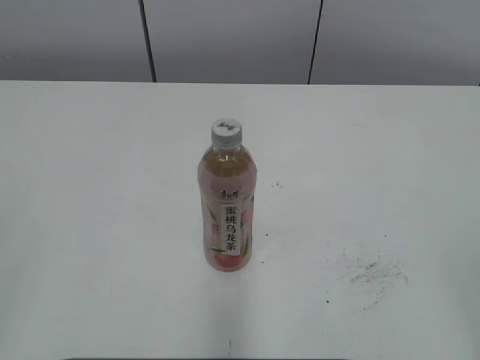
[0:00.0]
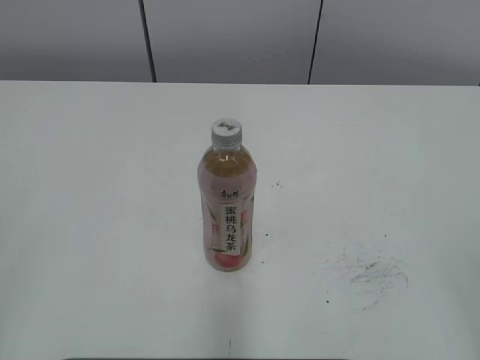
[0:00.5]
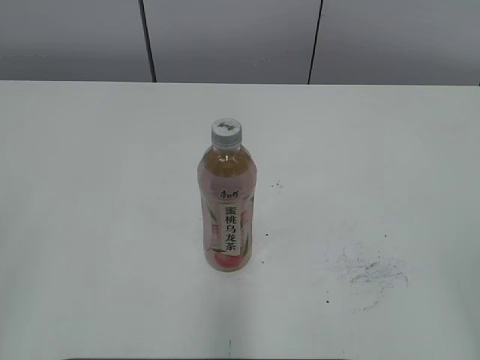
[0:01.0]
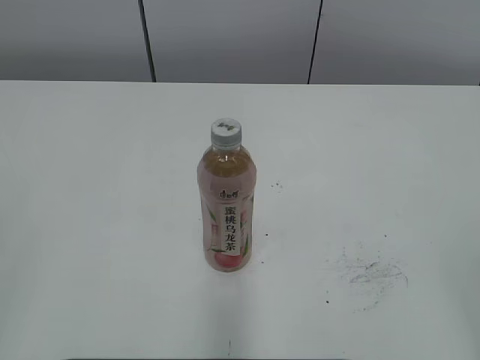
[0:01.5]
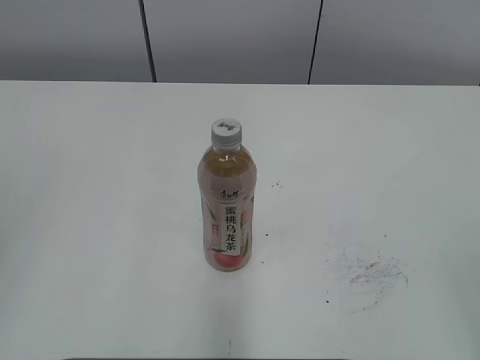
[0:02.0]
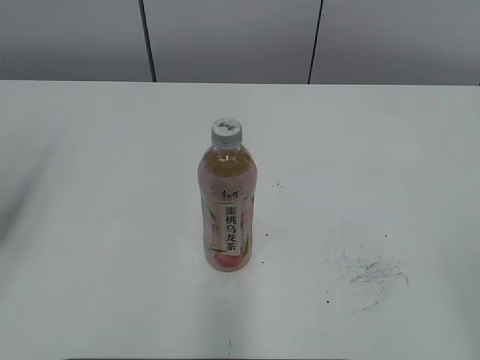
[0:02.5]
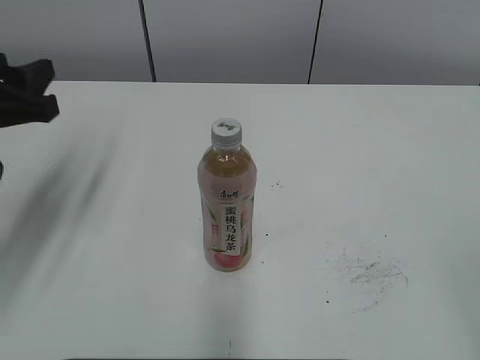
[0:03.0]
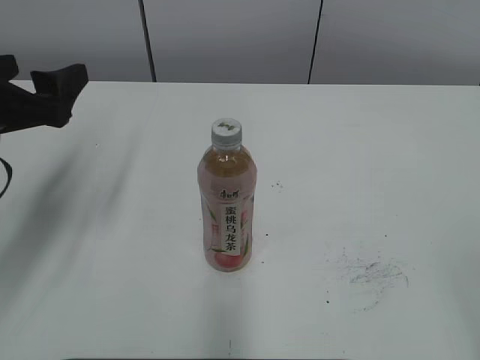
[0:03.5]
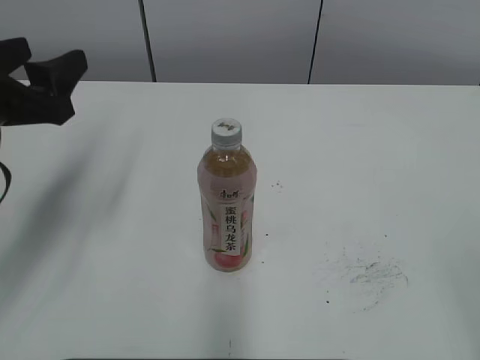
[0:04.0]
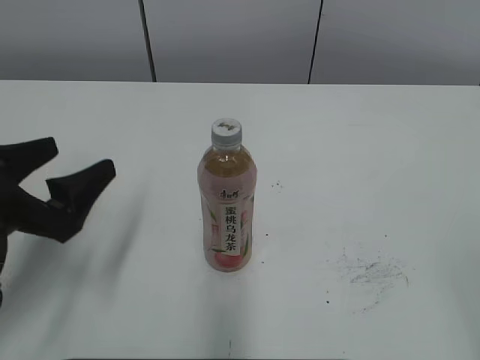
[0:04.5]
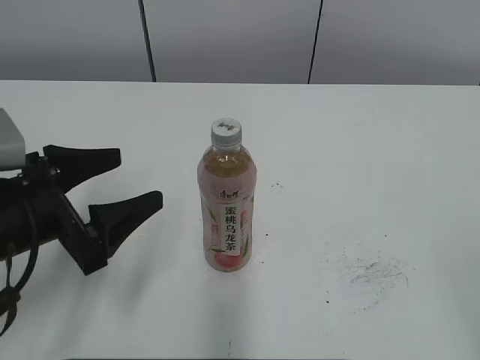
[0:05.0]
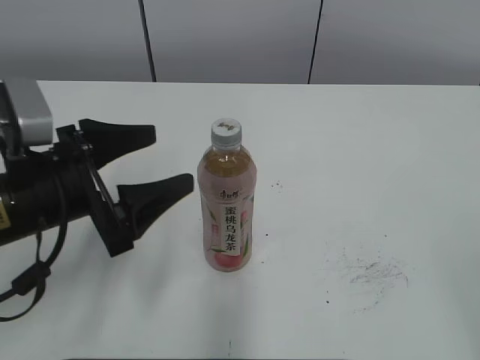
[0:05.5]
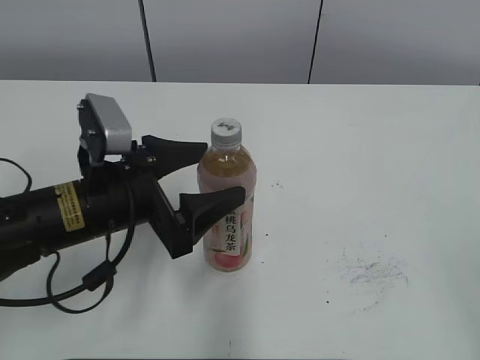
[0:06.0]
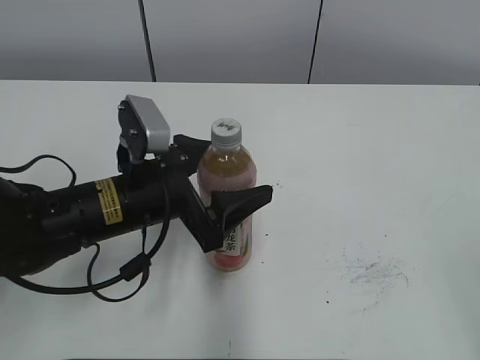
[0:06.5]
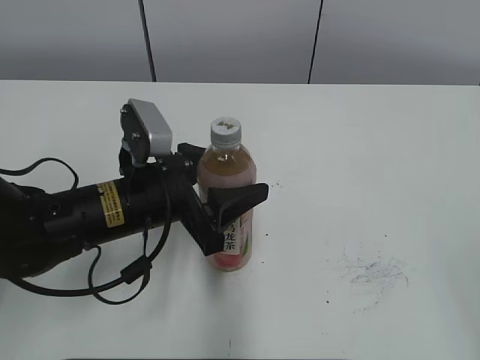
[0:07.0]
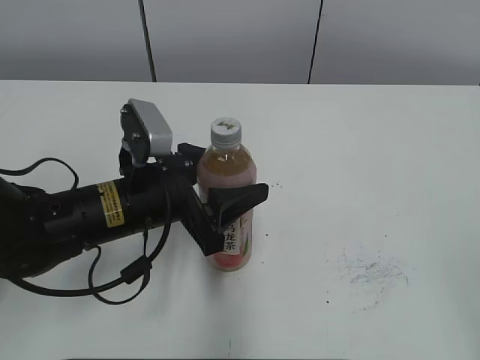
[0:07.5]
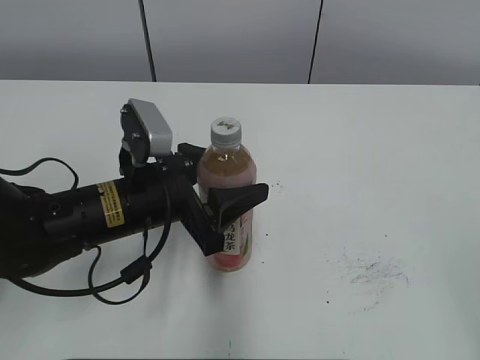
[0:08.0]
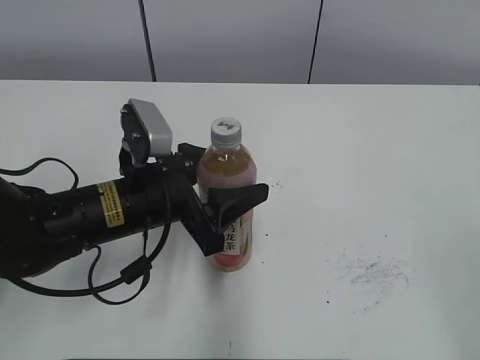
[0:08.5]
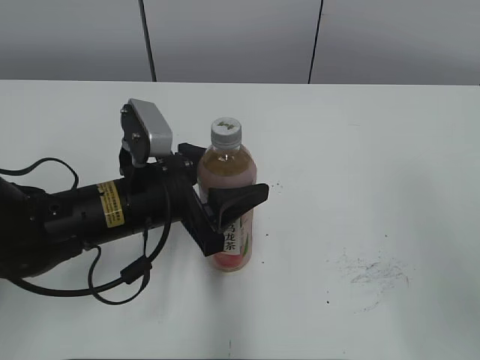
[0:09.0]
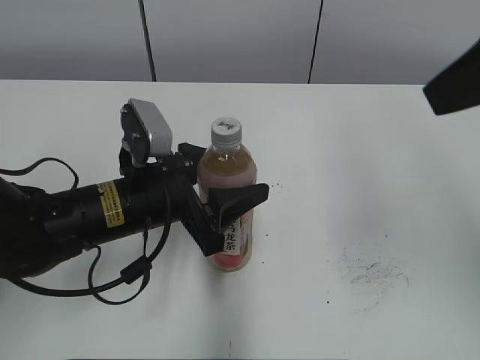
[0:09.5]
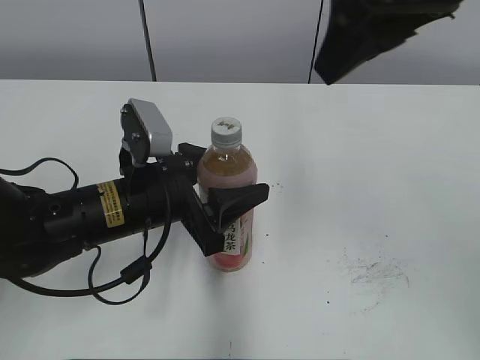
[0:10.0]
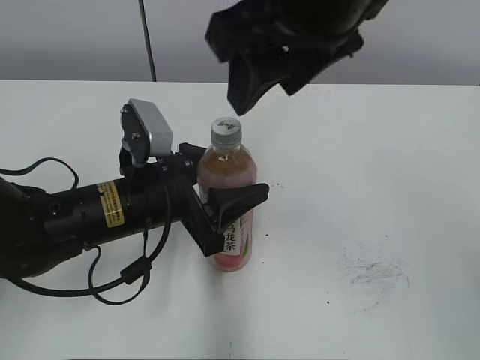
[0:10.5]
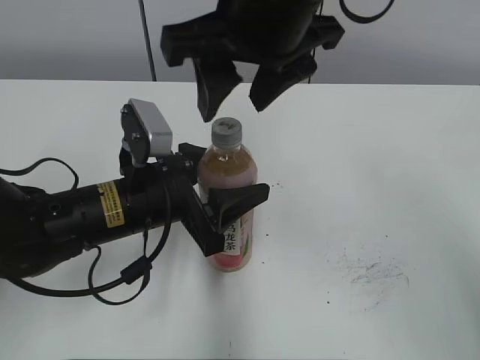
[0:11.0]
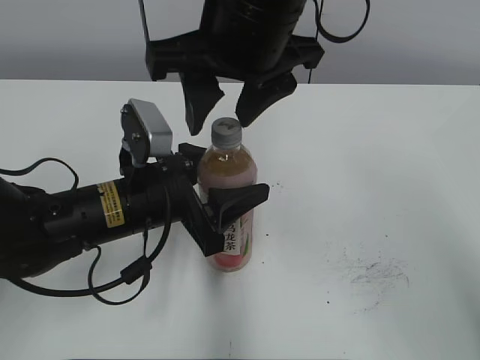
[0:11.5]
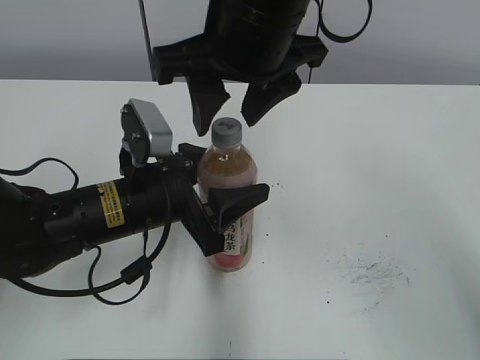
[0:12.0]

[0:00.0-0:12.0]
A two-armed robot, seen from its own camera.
Step, 0:00.0 to 0:07.0: Grab the Peach Oolong Tea with the left hand.
0:02.0 to 0:04.0: The left gripper goes about 25 cm forward and downward, and opens.
0:04.0 to 0:06.0: The left gripper goes about 15 cm to the right and downward, and opens.
0:06.0 to 0:08.0: The left gripper closes its fingers.
0:08.0 to 0:10.0: The right gripper shifts about 30 cm forward and to the left.
0:10.0 to 0:12.0: The right gripper moves to the left and downward, some 15 cm.

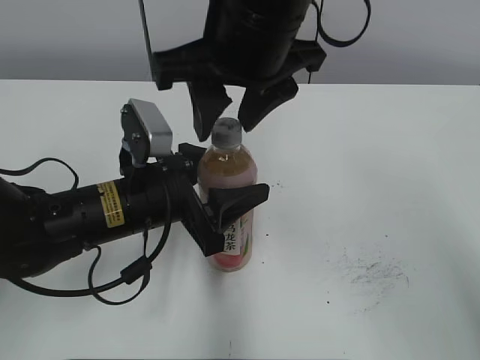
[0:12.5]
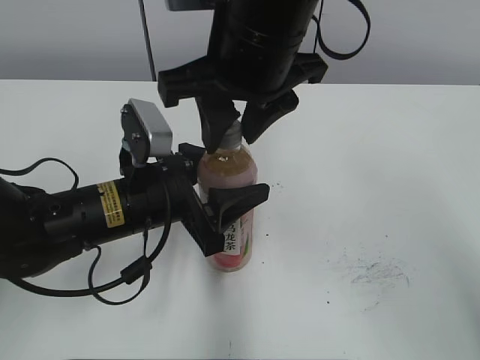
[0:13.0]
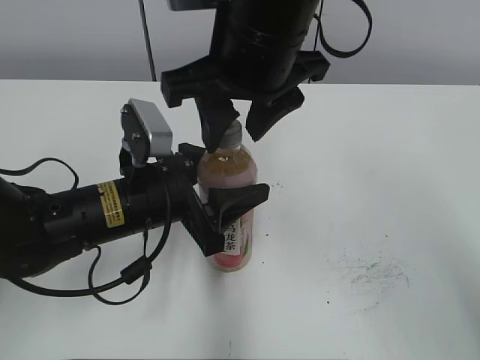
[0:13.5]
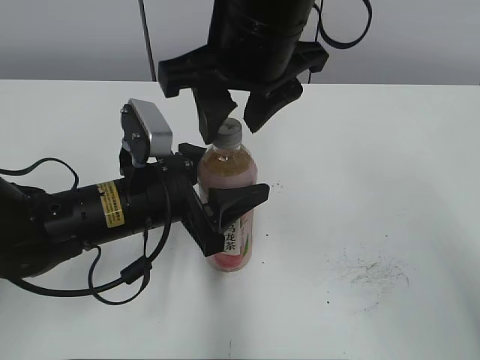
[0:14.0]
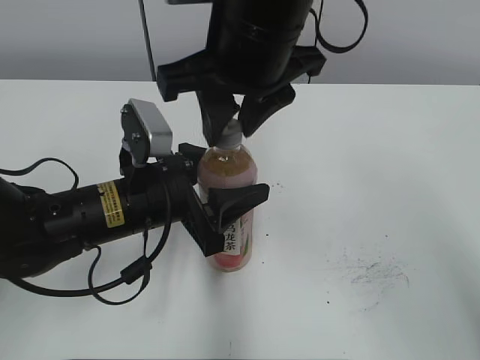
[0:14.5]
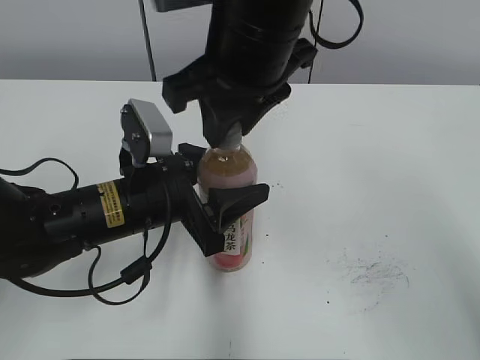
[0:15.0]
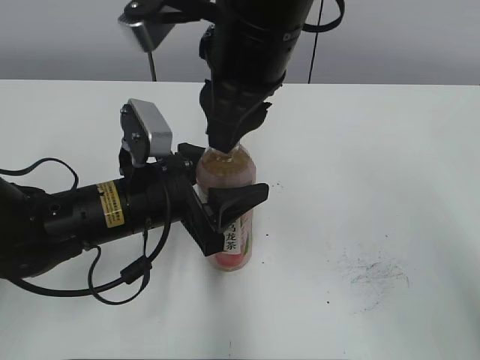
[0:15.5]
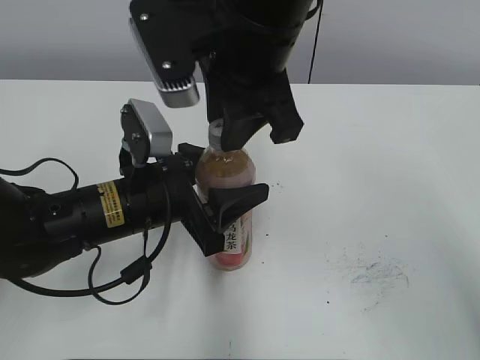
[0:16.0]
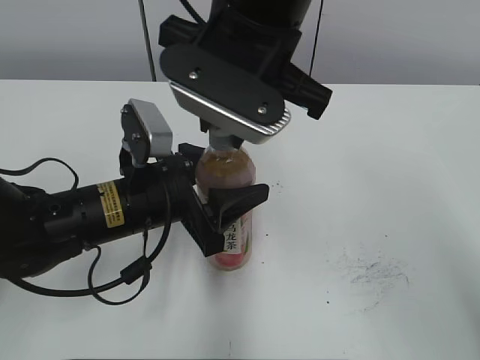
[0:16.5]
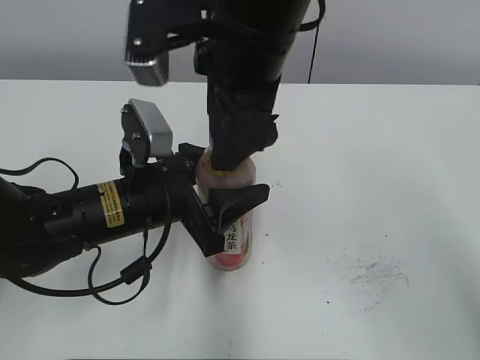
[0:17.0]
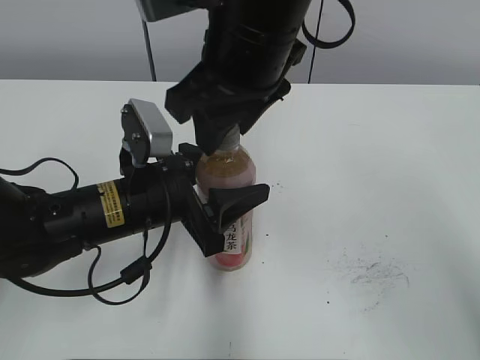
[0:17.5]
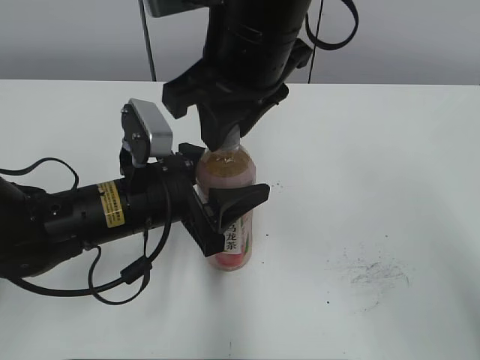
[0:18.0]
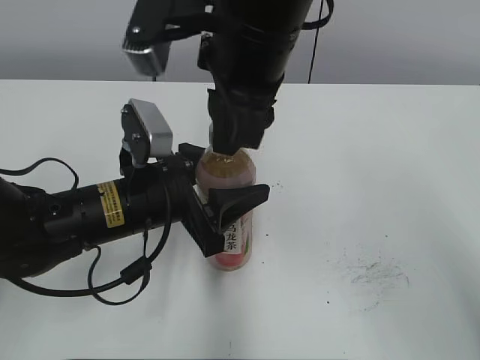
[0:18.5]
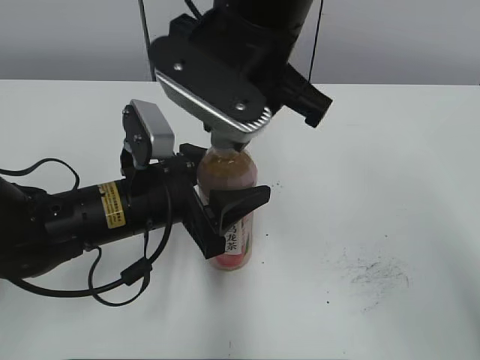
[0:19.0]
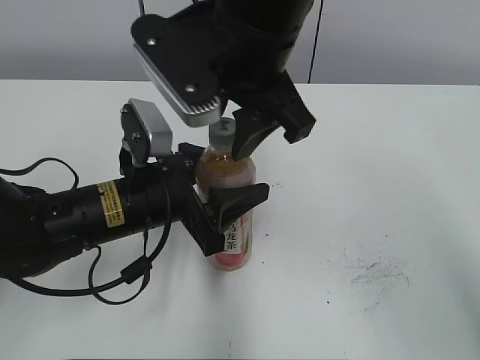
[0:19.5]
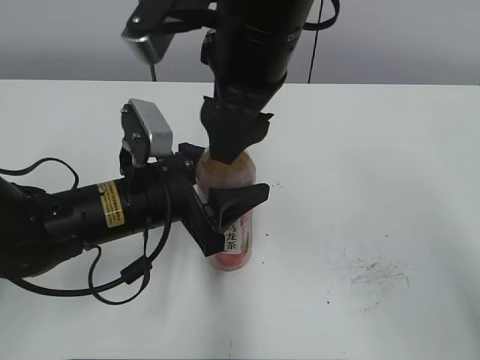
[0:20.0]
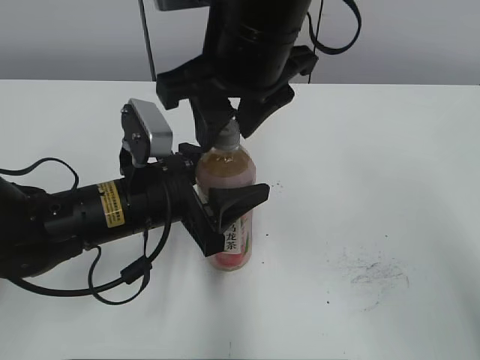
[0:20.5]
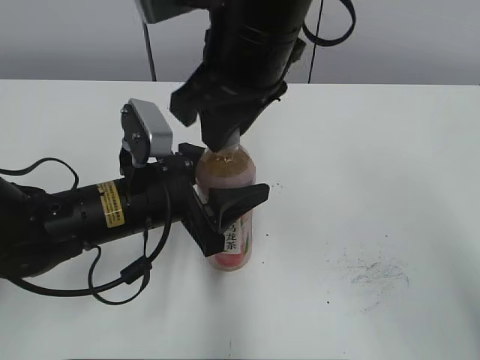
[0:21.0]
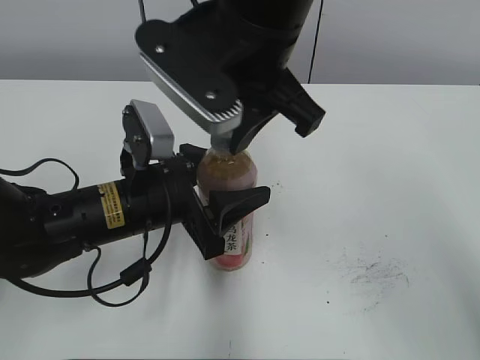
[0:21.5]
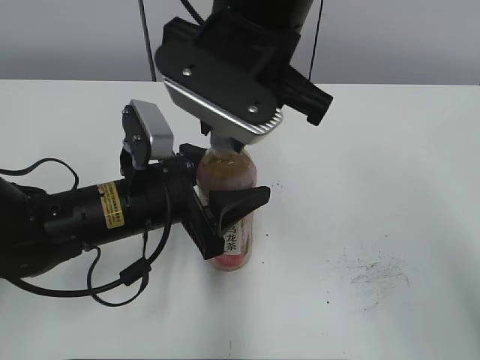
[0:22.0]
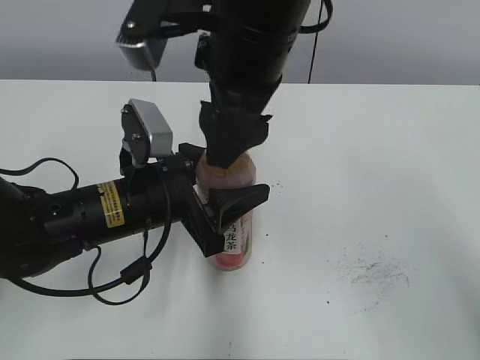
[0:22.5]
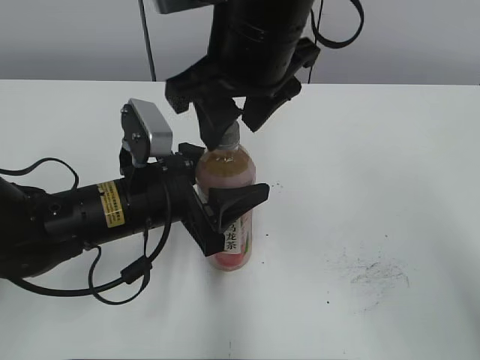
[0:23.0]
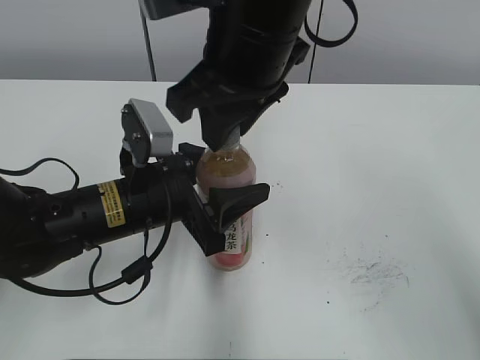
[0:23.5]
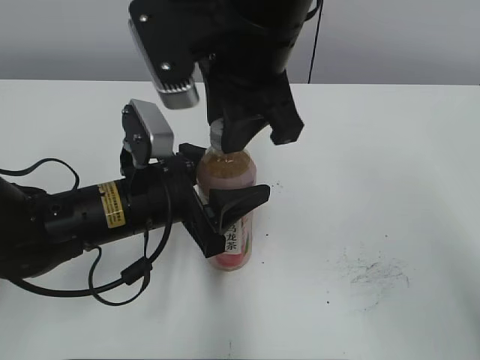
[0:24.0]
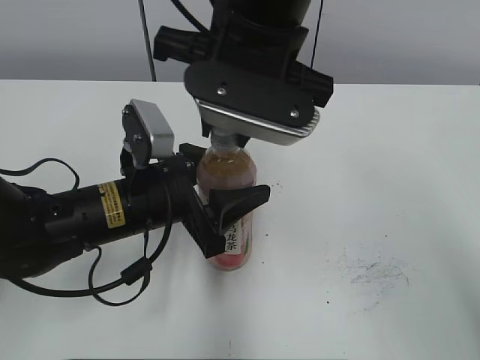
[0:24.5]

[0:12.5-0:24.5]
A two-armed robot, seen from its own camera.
0:12.5 to 0:14.5: Neither gripper changes place.
0:16.5 to 0:18.5: The right gripper opens and closes again.
0:18.5 to 0:20.5: The right gripper opens.
0:20.5 to 0:22.5: The right gripper opens.
0:22.5 to 0:24.5: The right gripper closes its fingers.

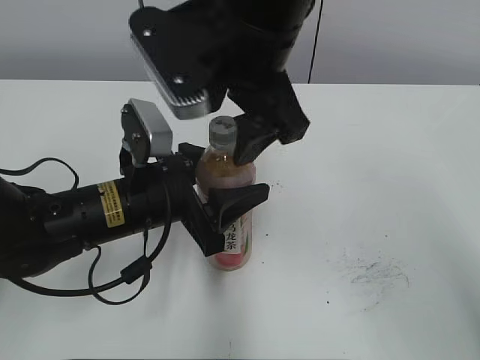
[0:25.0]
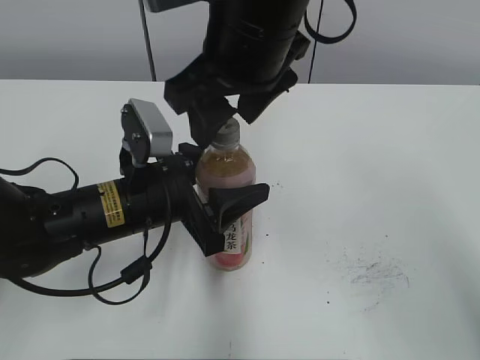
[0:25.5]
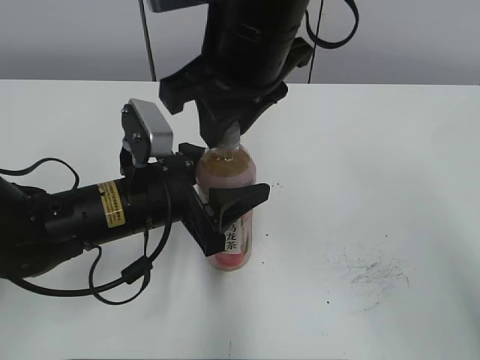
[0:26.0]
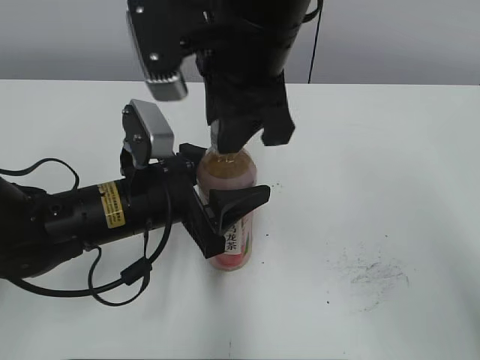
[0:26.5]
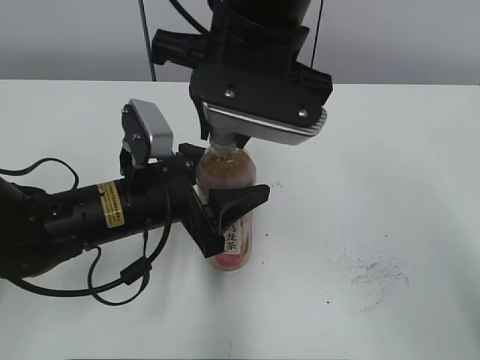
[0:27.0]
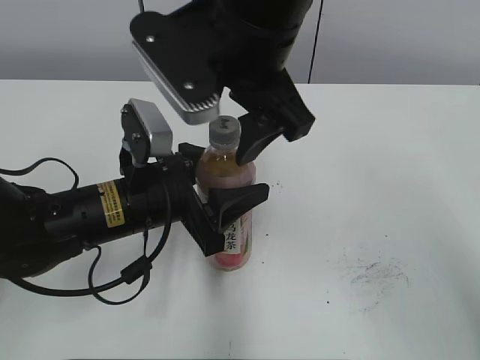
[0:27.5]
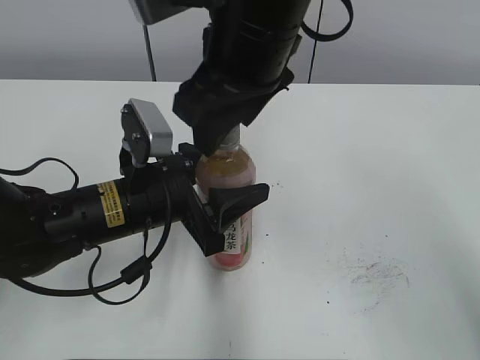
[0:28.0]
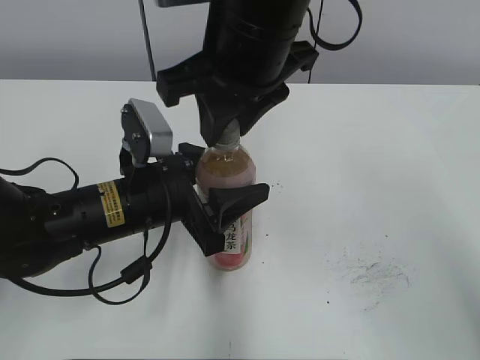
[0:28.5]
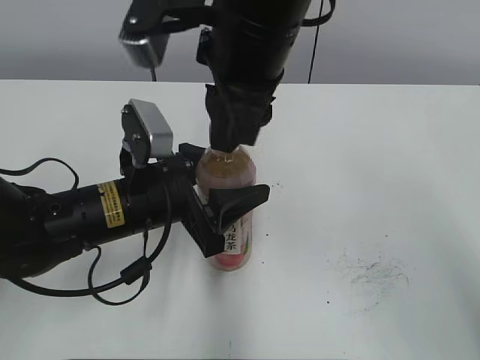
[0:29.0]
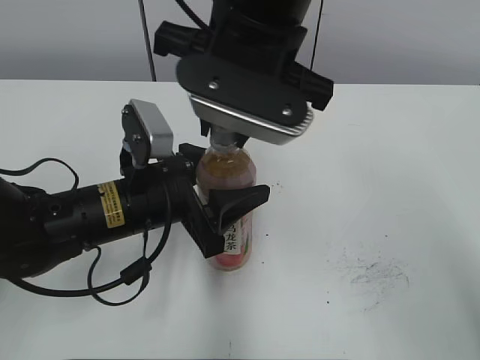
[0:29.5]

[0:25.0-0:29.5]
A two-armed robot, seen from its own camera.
0:25.0 to 0:27.0: The right gripper closes up.
0:27.0 to 0:29.5: The right gripper opens, then closes once more.
